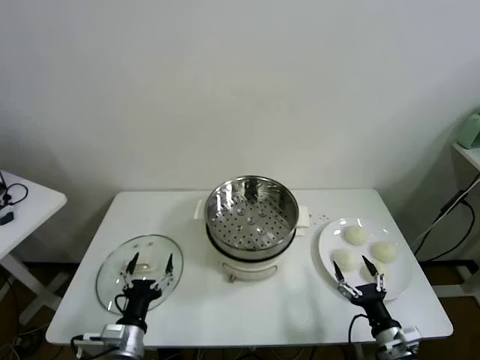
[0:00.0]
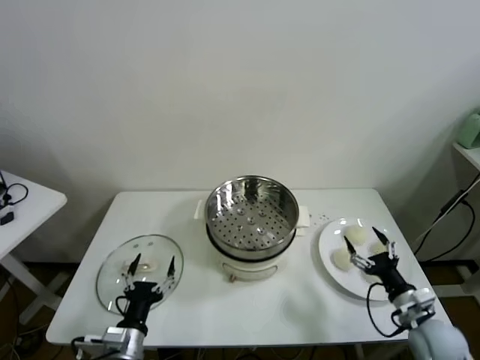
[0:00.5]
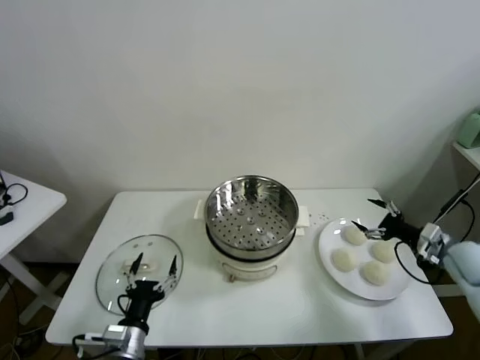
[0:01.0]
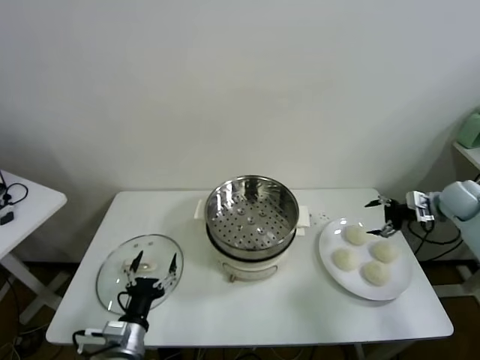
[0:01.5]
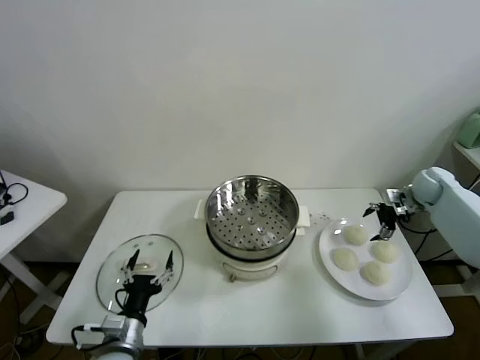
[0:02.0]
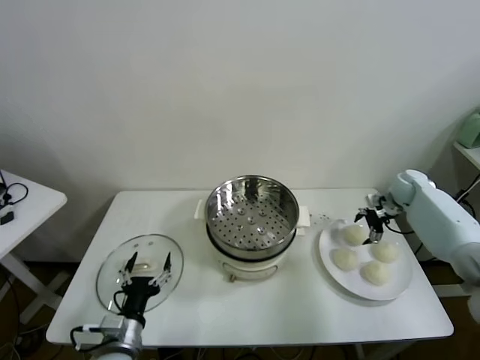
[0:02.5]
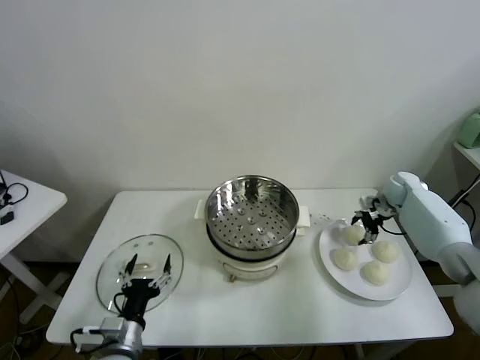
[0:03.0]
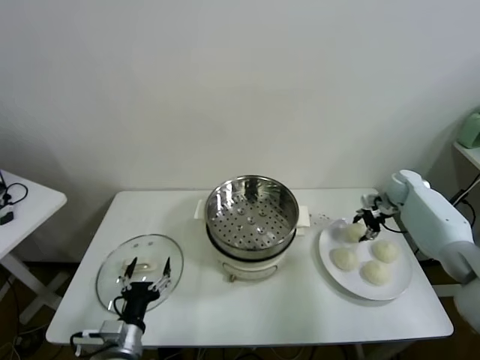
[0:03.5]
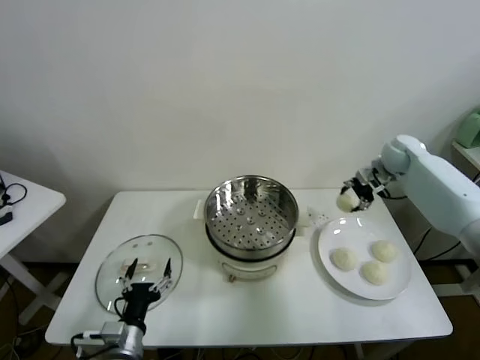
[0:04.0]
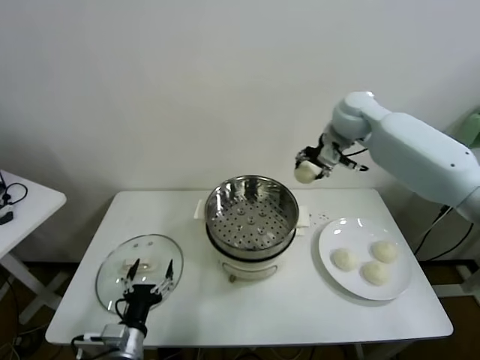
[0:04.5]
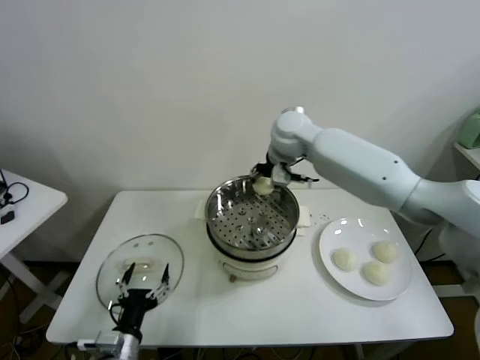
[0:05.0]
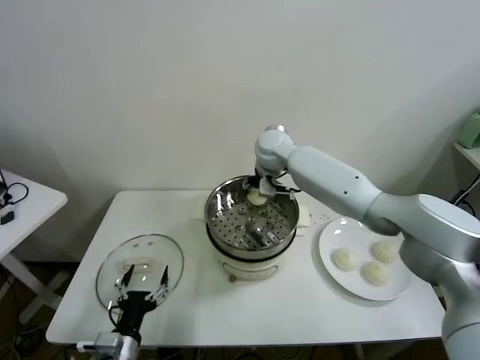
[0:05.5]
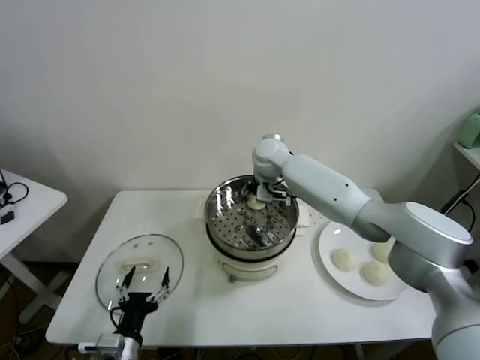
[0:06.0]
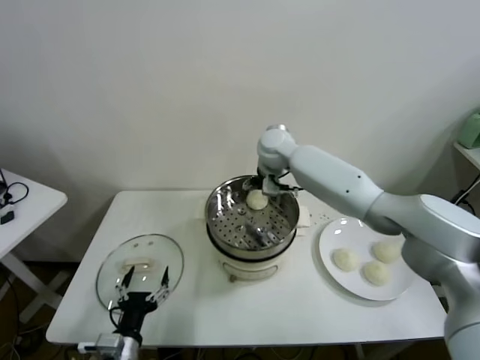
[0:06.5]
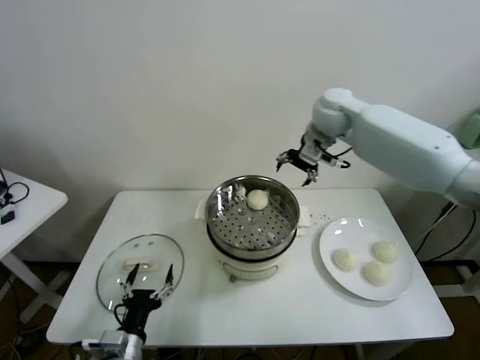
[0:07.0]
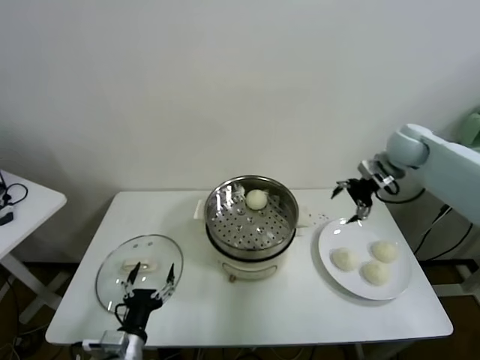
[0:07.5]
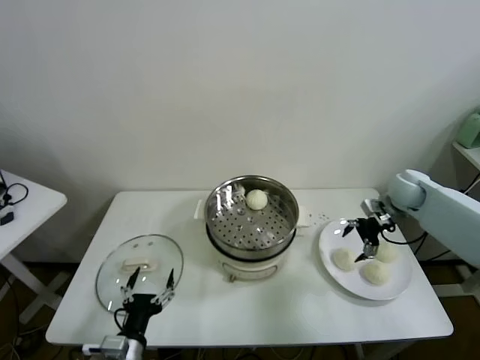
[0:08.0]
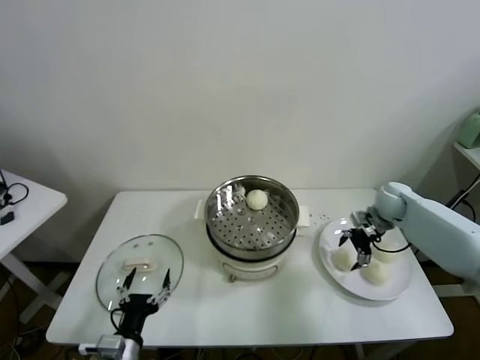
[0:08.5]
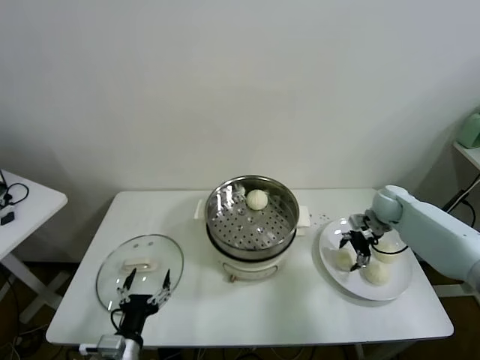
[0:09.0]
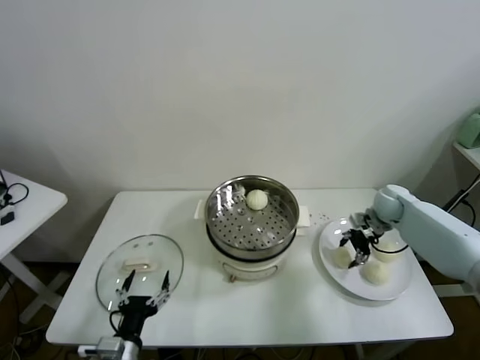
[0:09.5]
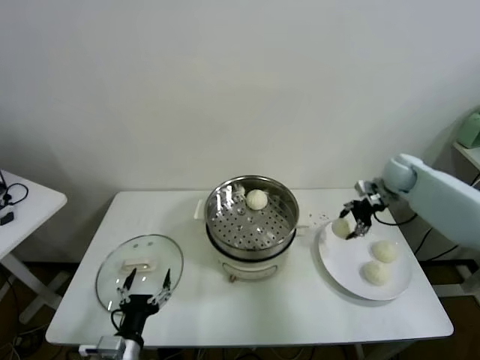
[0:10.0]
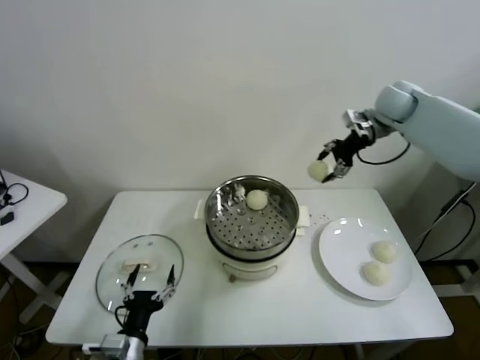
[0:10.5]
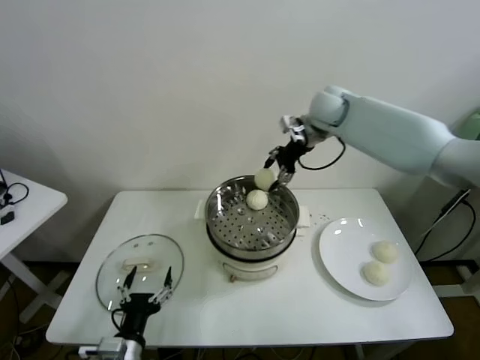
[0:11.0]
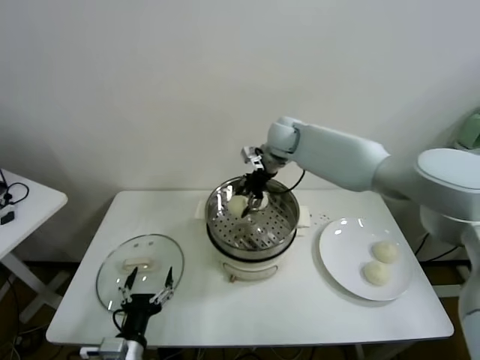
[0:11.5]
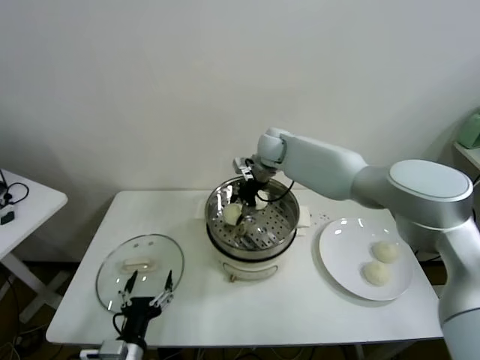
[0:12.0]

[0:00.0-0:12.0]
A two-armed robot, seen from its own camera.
Task of the whole recording: take steamed baozi put them in steamer.
Step, 0.0 to 3.0 s: Grasp the baozi in the plate with right gripper.
Step, 3.5 to 6.0 s: Place the baozi on the steamer with right gripper.
Step, 6.5 to 9.0 s: Grasp the baozi in the plate with right gripper.
2.0 to 4.0 s: The right gripper is displaced upward and to the left by about 15 cm, and closes its fingers.
4.0 to 6.0 s: The right gripper shifts some 30 cm to the left, and opens up.
6.0 to 8.0 s: The right gripper moves to the right, approximately 35 cm.
8.0 to 10.0 s: The right gripper moves upward, approximately 5 cm, and closes.
10.0 to 12.0 s: The right gripper travels to the left by roughly 30 cm.

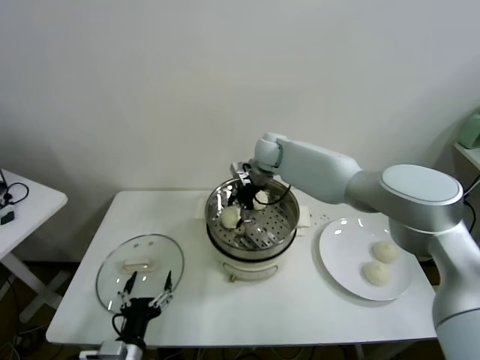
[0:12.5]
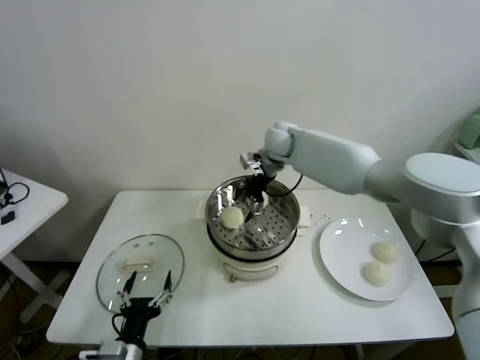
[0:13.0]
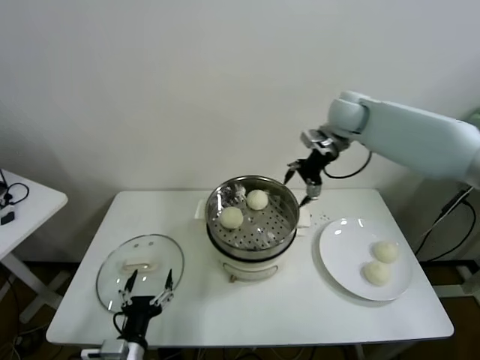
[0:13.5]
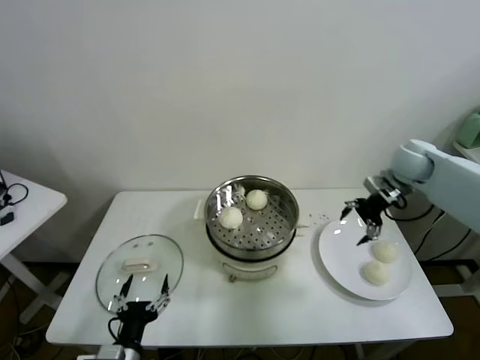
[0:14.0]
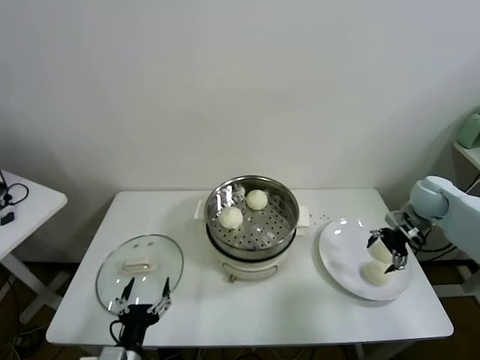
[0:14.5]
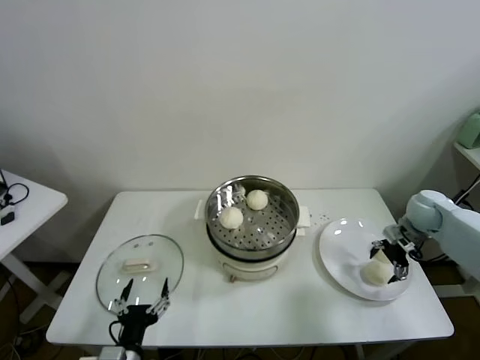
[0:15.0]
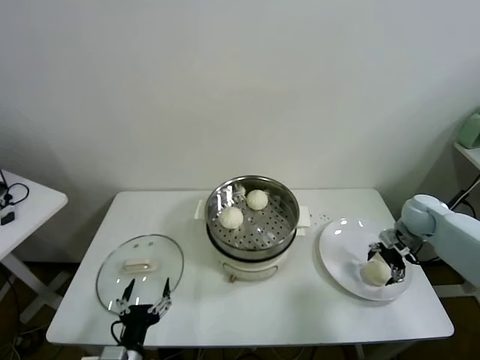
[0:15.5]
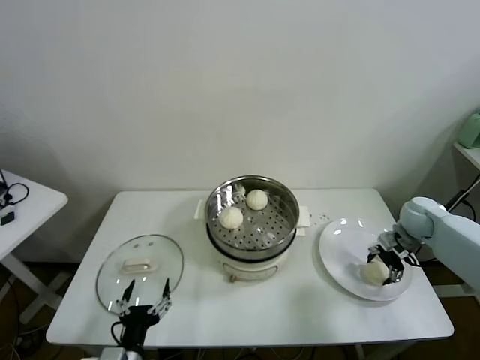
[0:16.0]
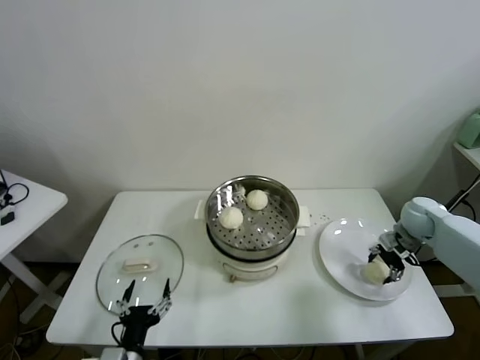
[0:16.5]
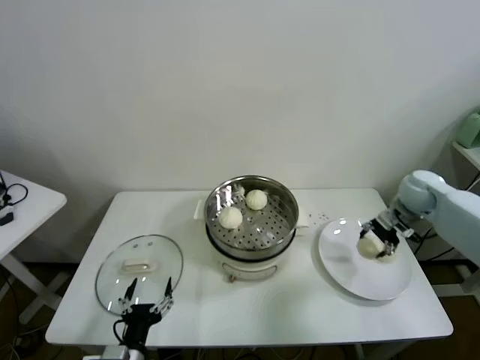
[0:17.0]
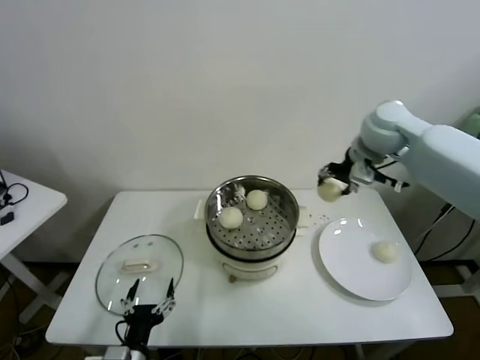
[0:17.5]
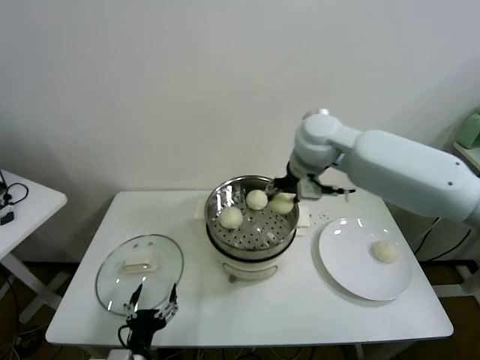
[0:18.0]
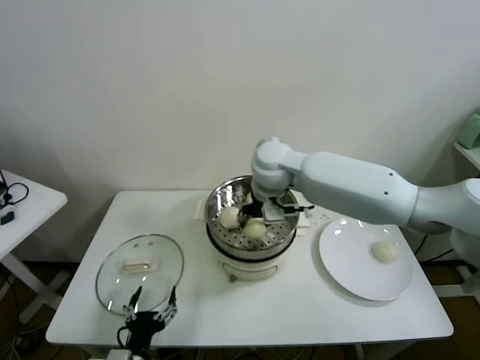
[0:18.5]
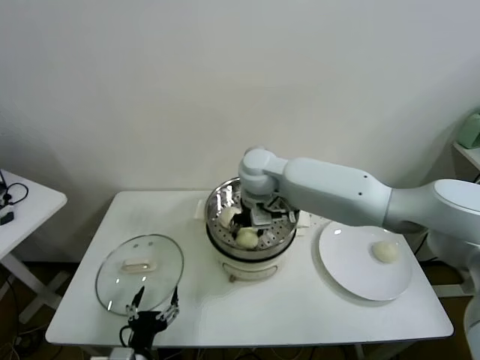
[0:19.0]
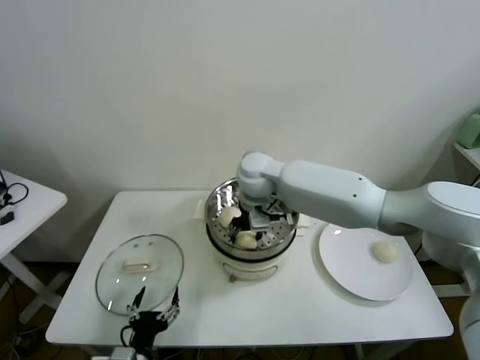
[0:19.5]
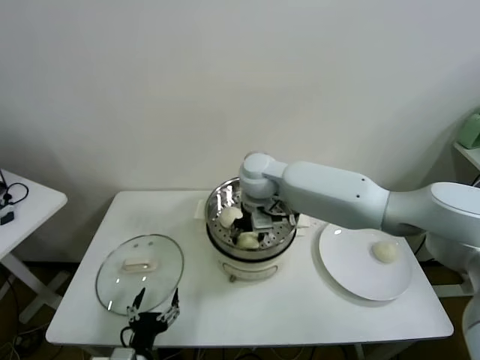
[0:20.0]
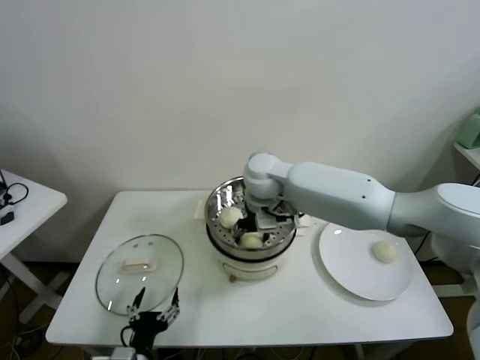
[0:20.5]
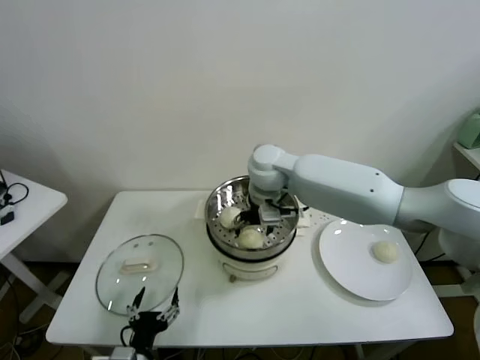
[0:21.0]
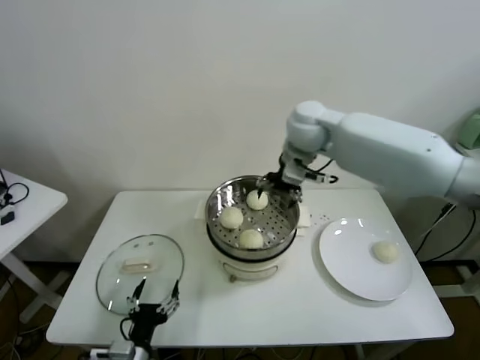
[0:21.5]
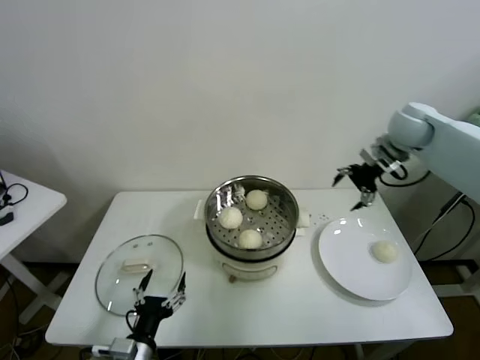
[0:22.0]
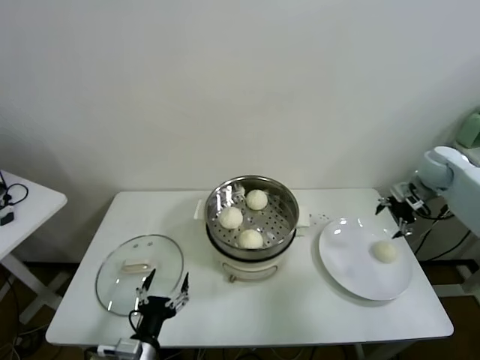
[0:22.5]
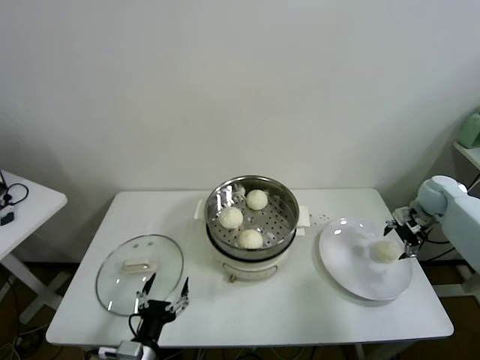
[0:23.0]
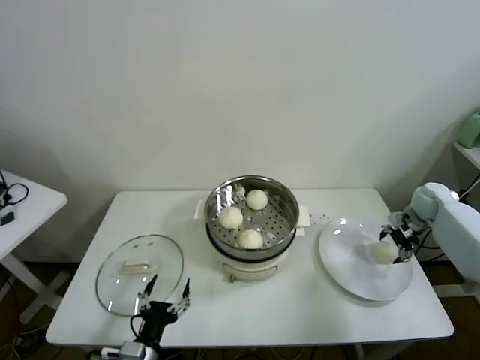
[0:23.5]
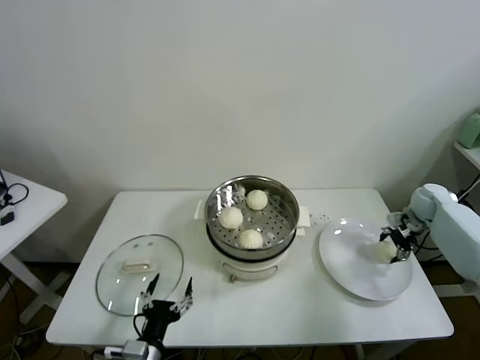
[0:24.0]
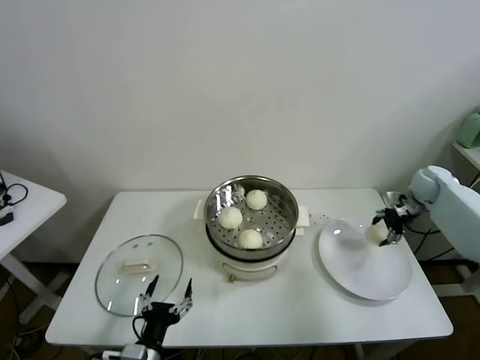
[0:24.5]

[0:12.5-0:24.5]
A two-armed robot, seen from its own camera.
Task of the whole recording: take steamed baozi put them in steamer.
Step, 13.0 to 16.0 s: Grasp the baozi in the plate with right gripper.
Step, 16.5 to 21.0 s: Place the baozi on the steamer with right gripper.
Step, 21.5 to 23.5 s: Grasp the baozi in the plate with right gripper.
12.5 to 14.5 s: The right gripper is displaced to the right by approximately 40 cm.
14.5 to 16.5 s: The right gripper heads downward, covering about 5 cm, and closes its fingers.
16.5 to 18.5 s: The right gripper heads to the left and upward, covering some 40 cm.
18.5 to 20.5 s: The right gripper opens its fingers.
20.5 to 22.5 s: The right gripper heads to the right, covering approximately 40 cm, and opens up.
22.5 to 24.5 s: The right gripper heads downward, covering about 10 cm, and closes up.

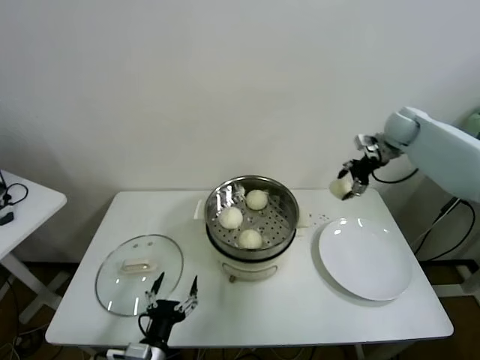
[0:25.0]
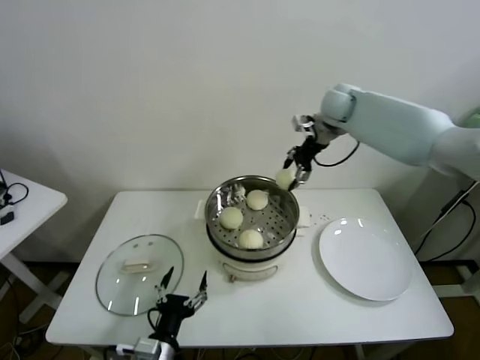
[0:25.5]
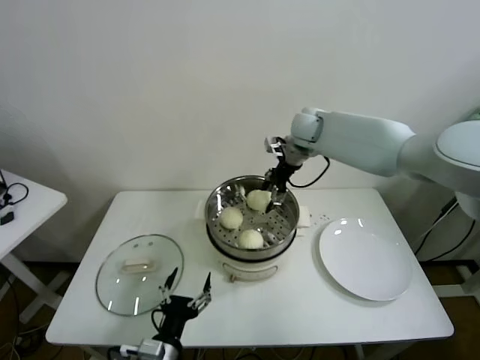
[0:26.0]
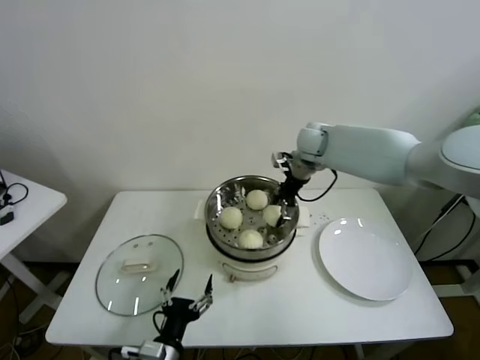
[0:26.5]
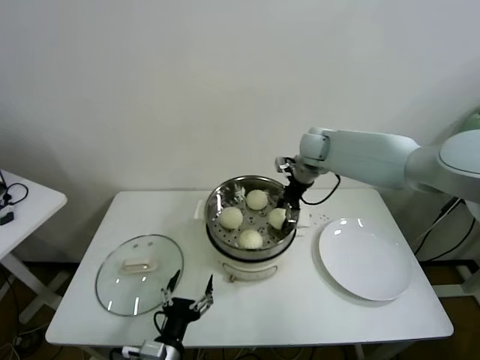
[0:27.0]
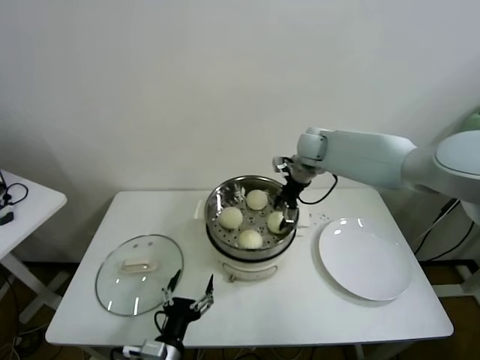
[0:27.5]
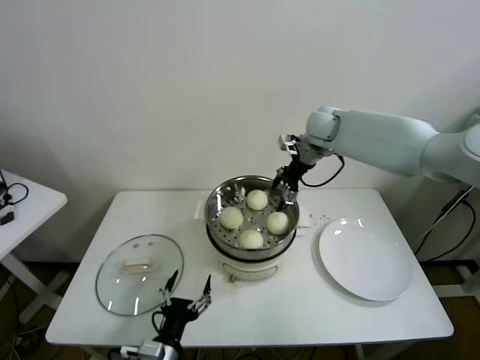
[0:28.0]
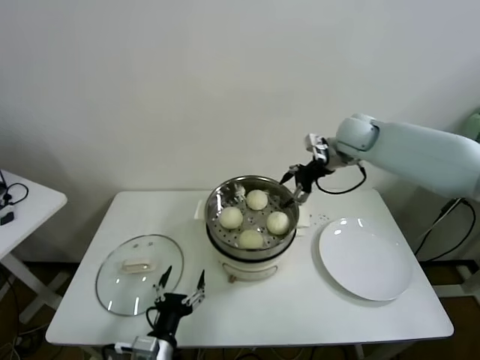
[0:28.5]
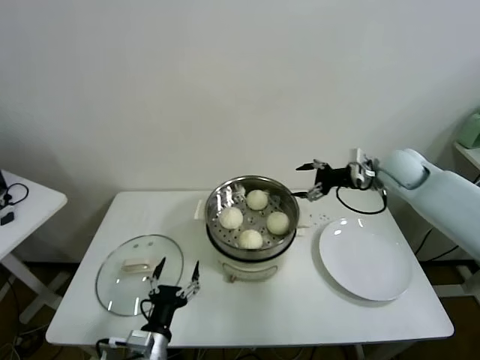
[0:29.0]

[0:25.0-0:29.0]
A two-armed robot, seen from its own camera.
Task of the whole recording: take steamed baozi put them in steamer.
Step, 25.0 to 27.5 s: Place the baozi on the steamer with right gripper.
25.0 to 27.0 s: The right gripper shifts about 20 cm to the left.
27.0 to 29.0 s: The right gripper goes approximately 20 cm to the right and backward, and opens.
